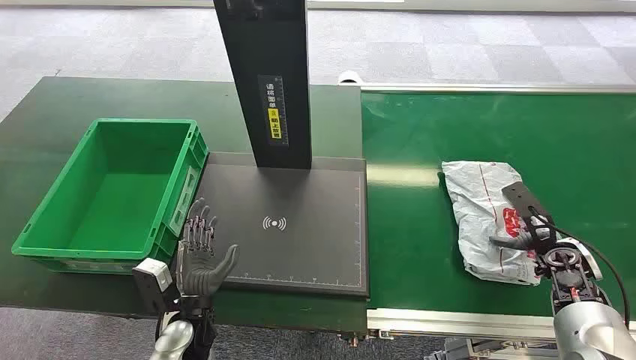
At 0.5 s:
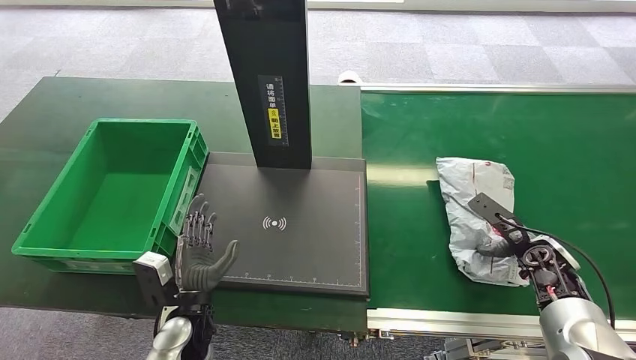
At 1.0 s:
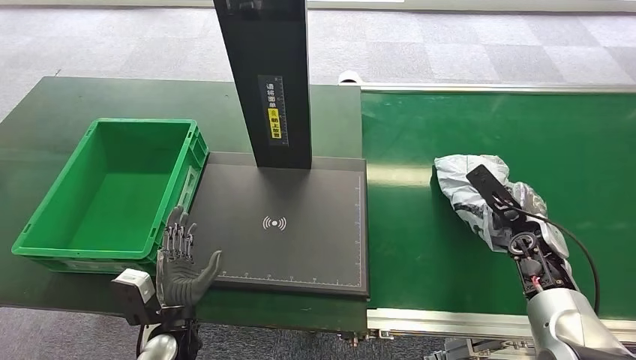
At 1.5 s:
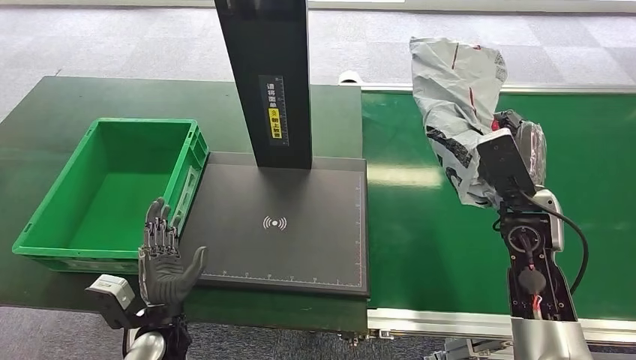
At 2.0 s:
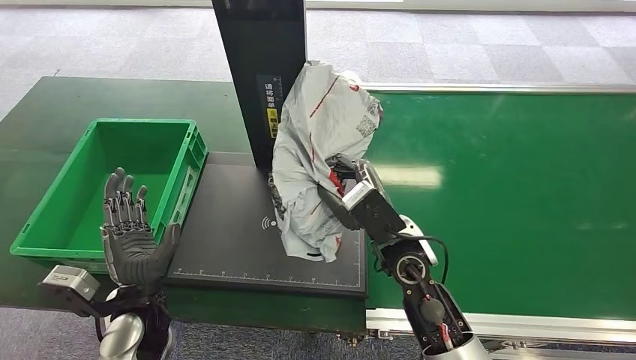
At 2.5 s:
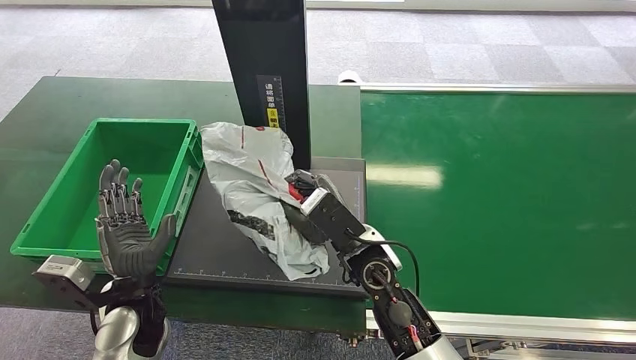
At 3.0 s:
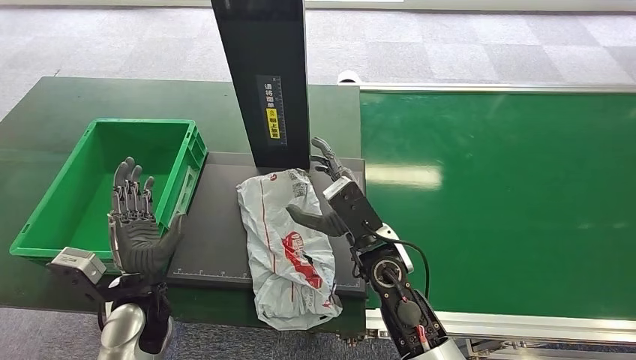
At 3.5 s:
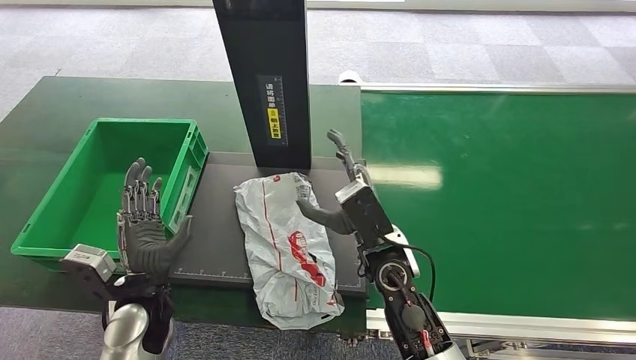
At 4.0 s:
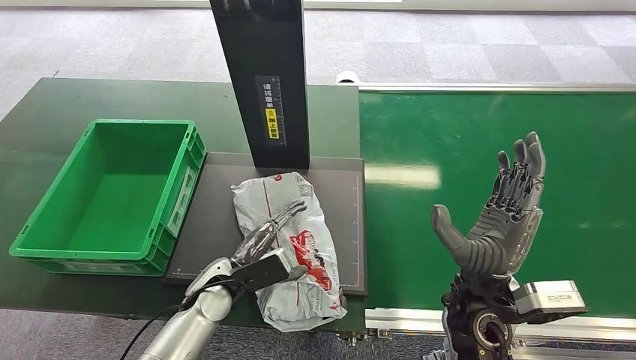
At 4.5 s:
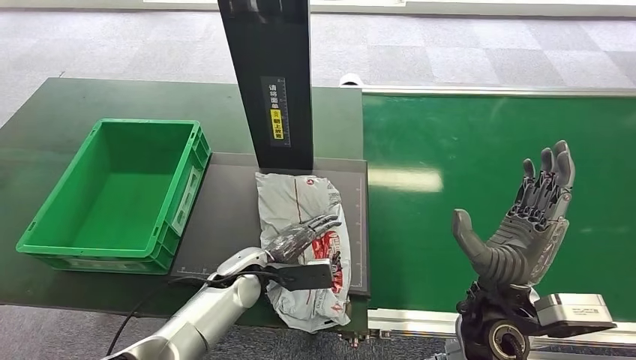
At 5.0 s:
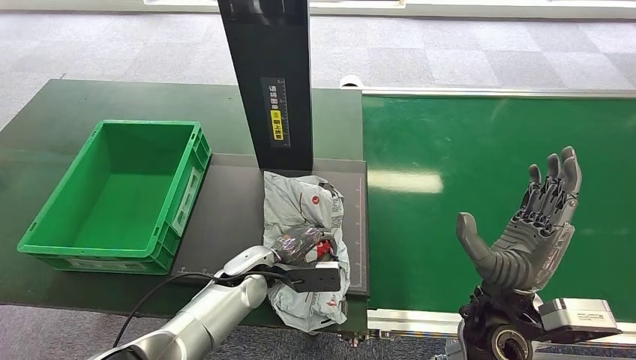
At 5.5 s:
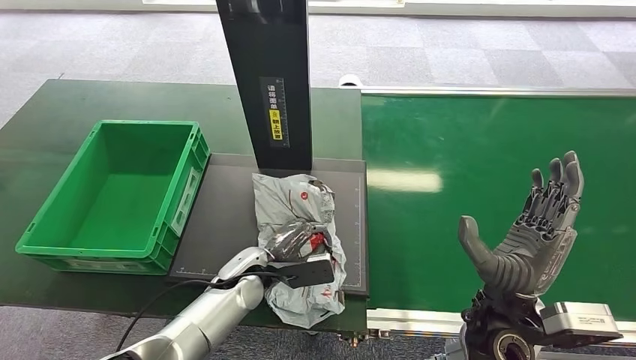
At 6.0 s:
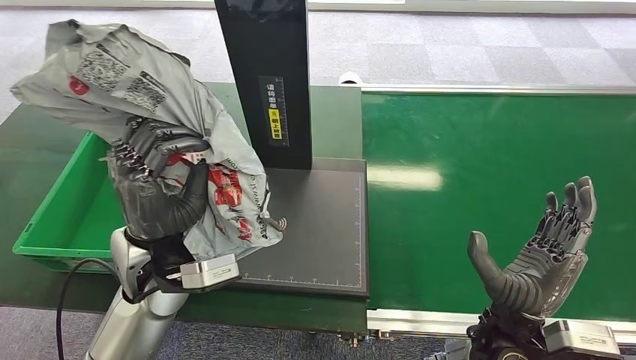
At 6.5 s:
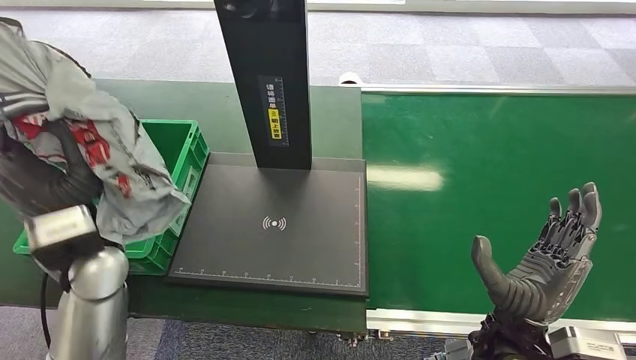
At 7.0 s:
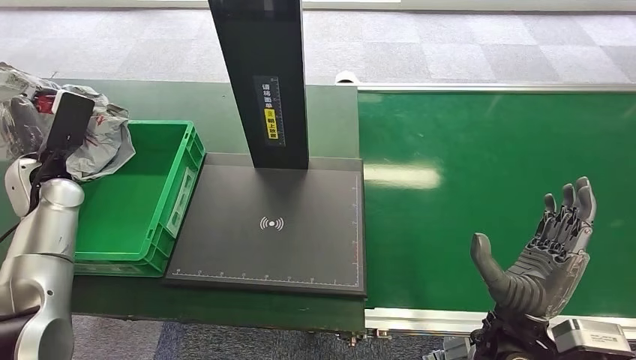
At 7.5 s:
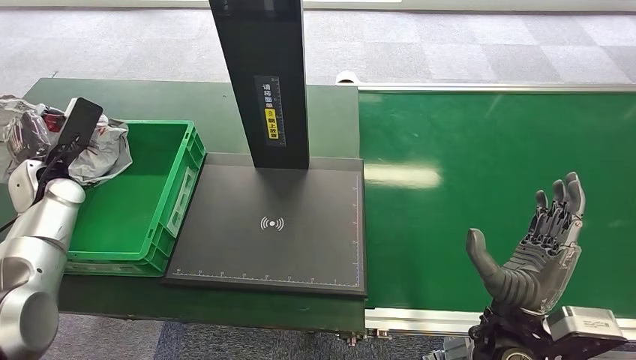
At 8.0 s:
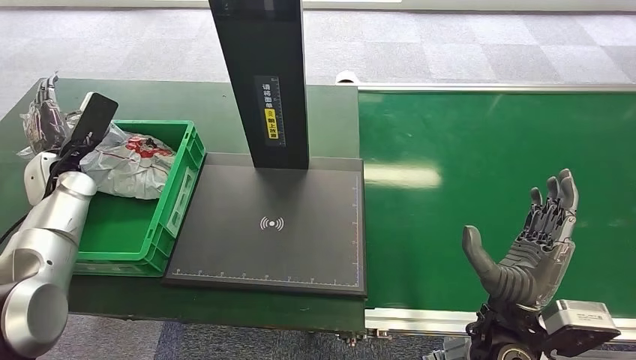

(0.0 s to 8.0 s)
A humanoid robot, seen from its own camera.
Step, 0.0 s - 1.0 s: Pick up the package from the conveyor belt.
Step, 1.5 s - 3.0 s: Place the package onto the inbound machine.
Step, 3.5 s - 5.5 s: Pick up the package from the inbound machine.
Step, 6.0 s - 8.0 s: Place the package into the parcel locker.

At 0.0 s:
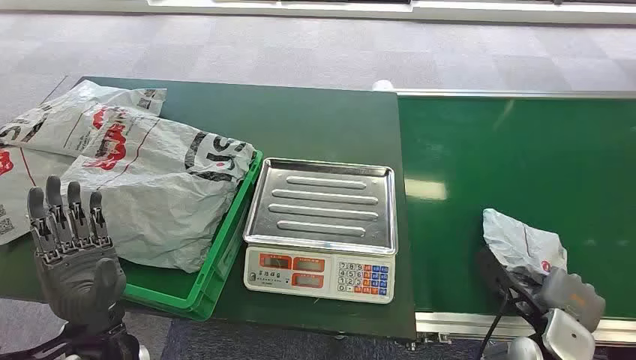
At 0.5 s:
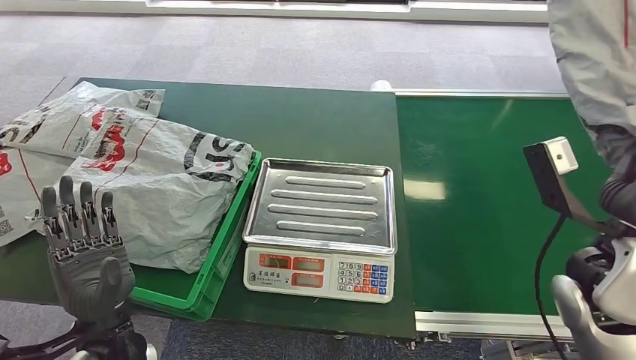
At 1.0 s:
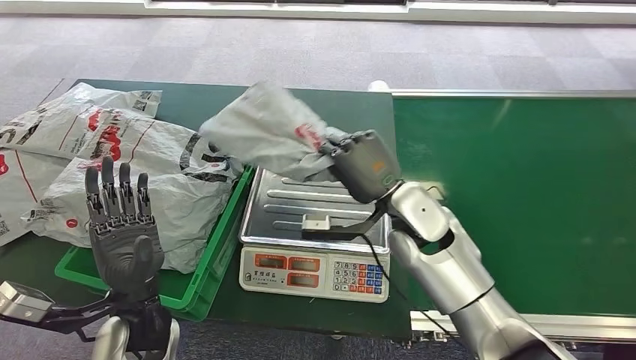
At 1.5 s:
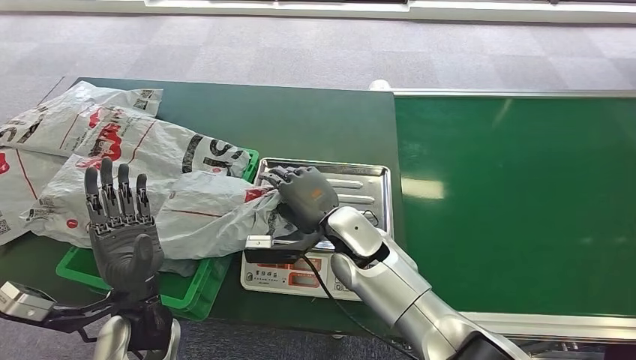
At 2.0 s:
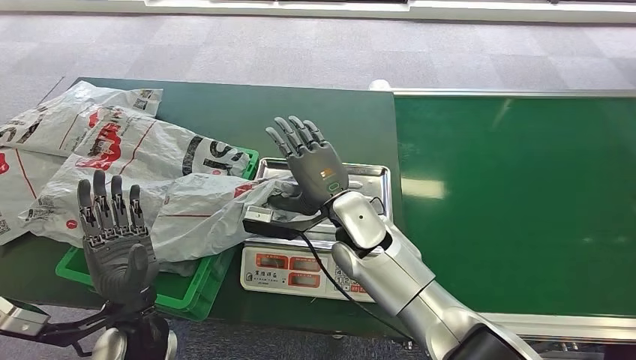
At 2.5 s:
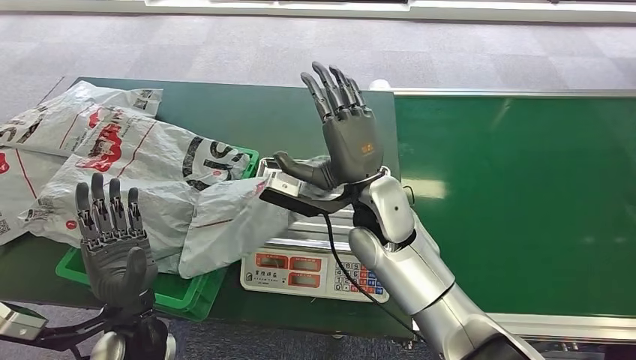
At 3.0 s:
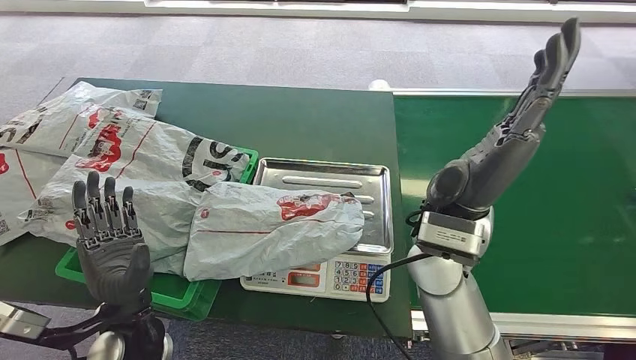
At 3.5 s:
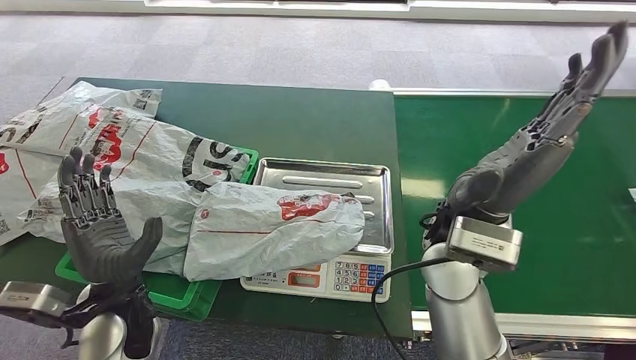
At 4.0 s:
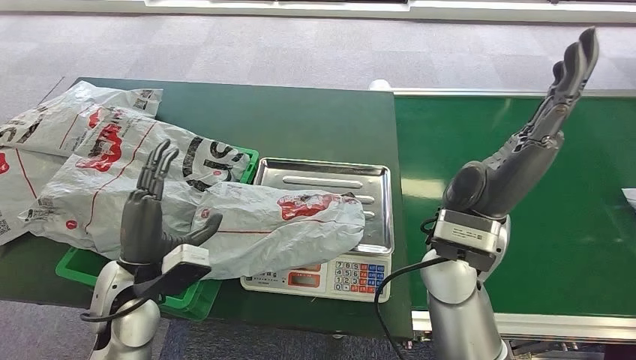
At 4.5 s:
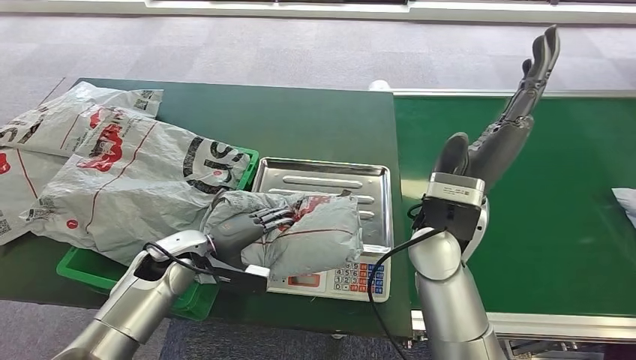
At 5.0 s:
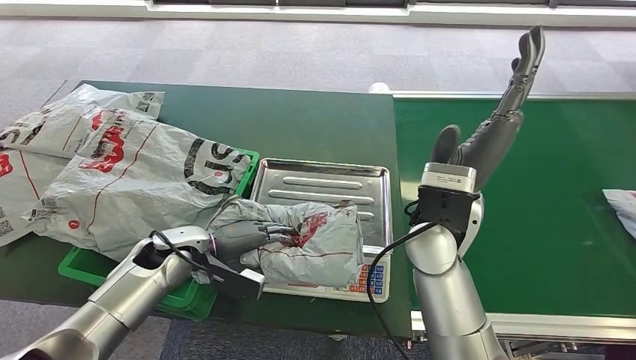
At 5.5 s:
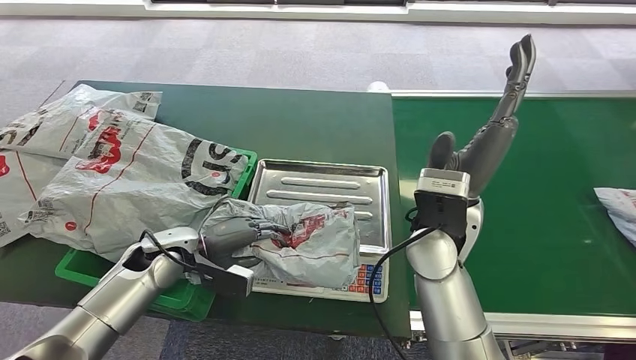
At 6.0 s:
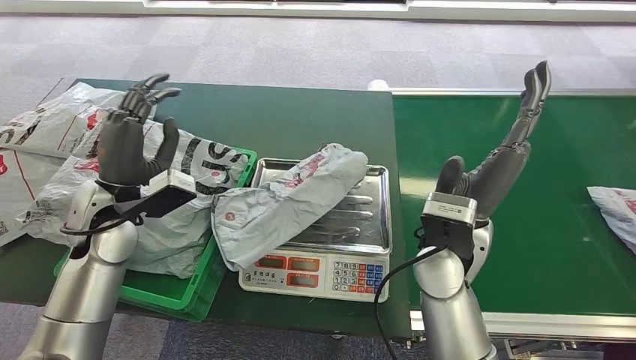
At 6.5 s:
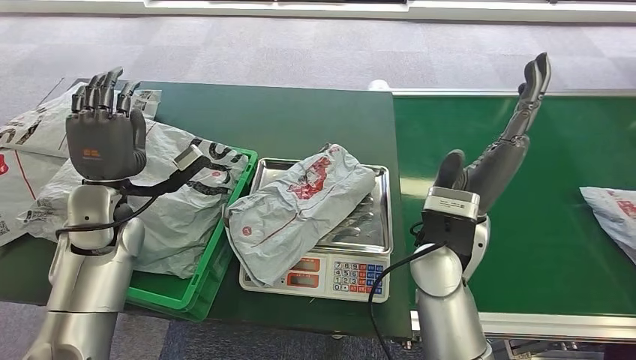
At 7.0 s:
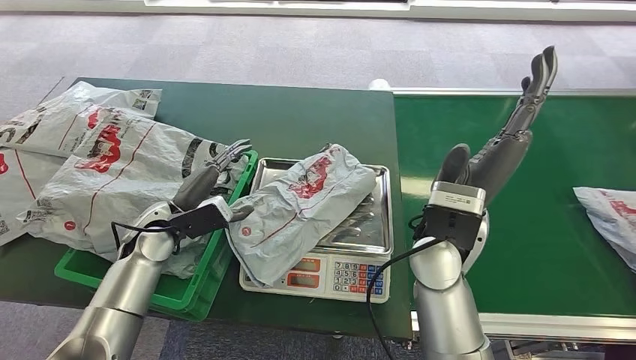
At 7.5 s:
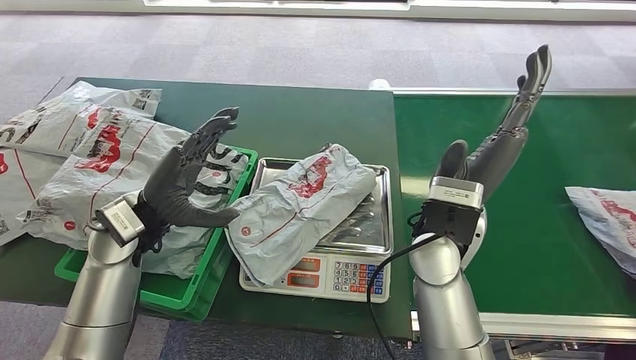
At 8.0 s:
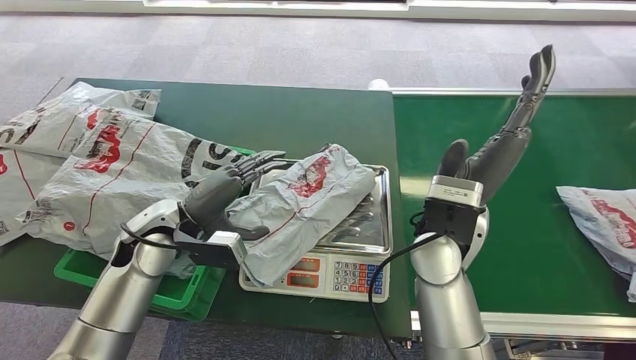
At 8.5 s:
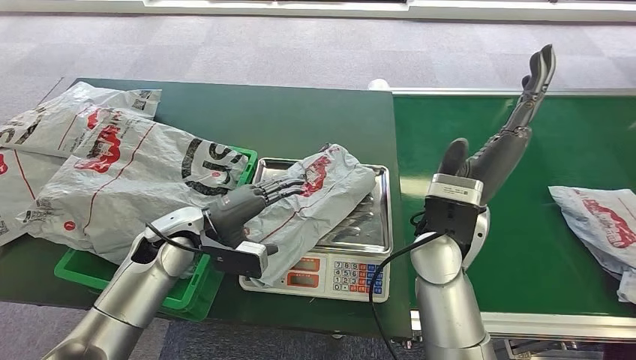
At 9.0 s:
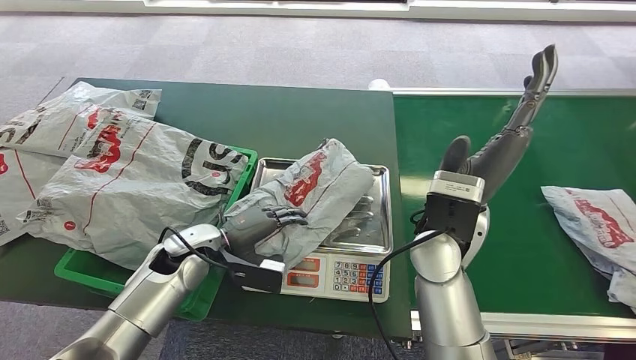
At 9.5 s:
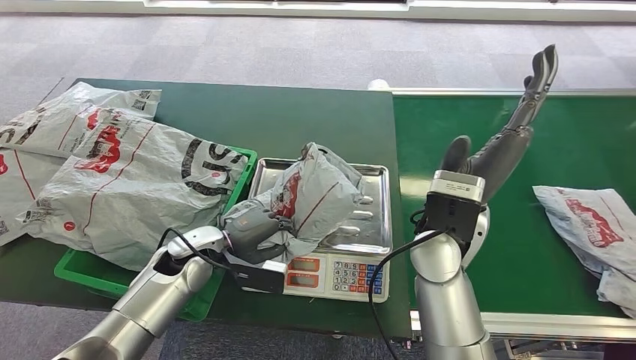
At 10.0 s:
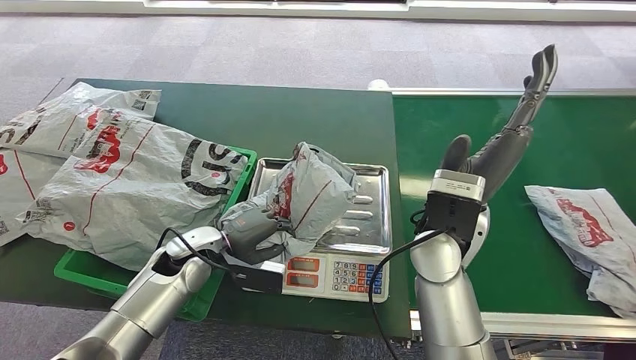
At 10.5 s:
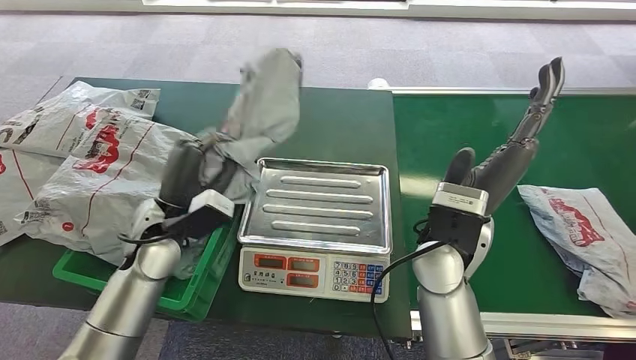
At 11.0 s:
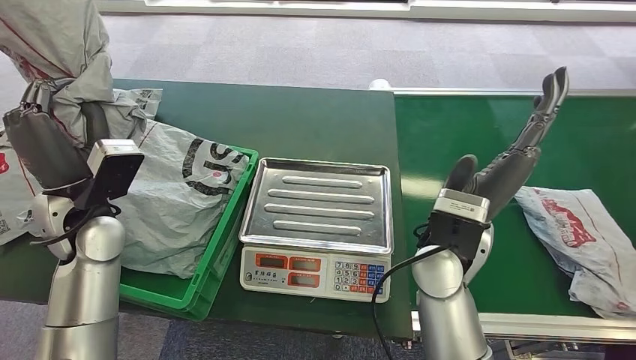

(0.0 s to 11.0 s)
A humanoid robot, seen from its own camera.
Step, 0.0 s - 0.5 s: Pick up the package from the conveyor belt.
Step, 1.0 s - 3.0 s: Place the package onto the inbound machine.
Step, 9.0 s - 10.0 s: Pick up the package from the inbound machine.
7.5 s - 9.0 s: The left hand heads downward, covering roughly 10 cm.
